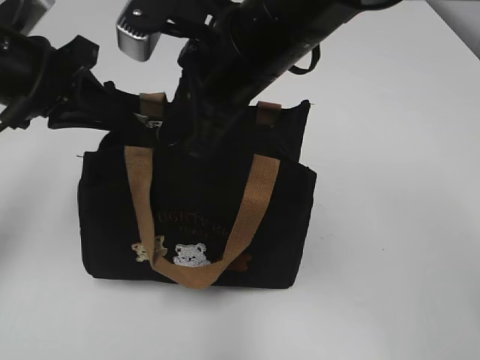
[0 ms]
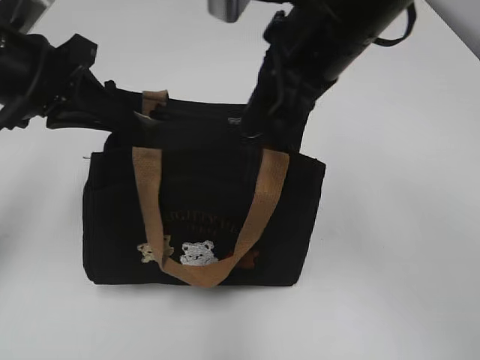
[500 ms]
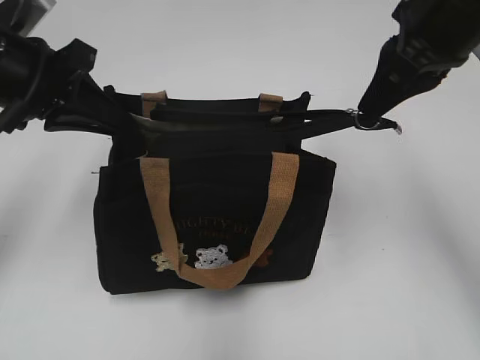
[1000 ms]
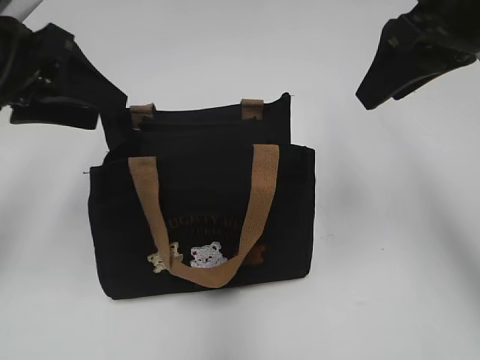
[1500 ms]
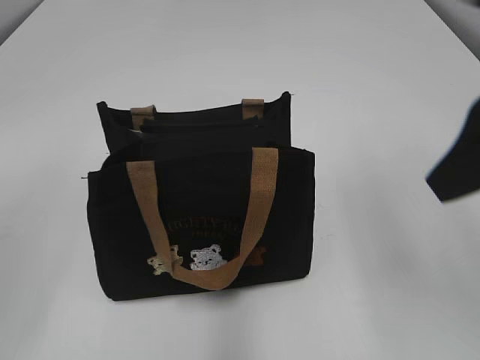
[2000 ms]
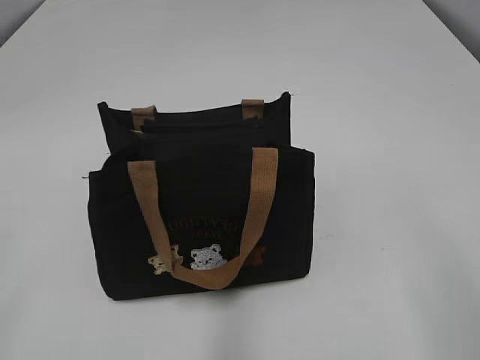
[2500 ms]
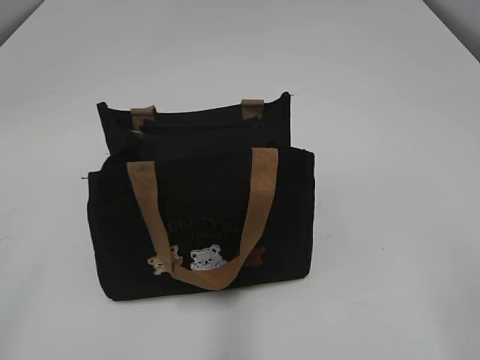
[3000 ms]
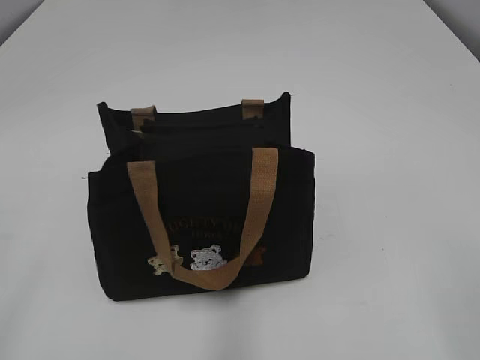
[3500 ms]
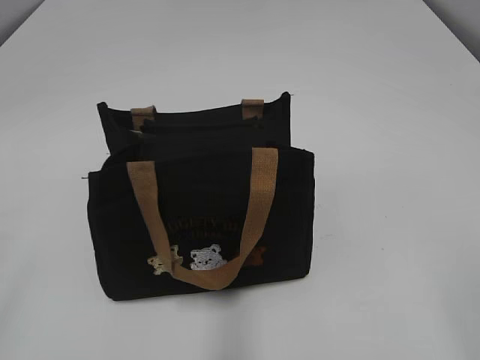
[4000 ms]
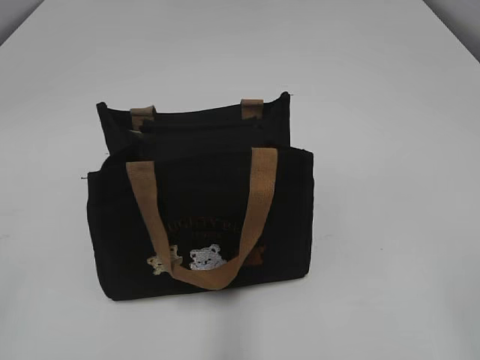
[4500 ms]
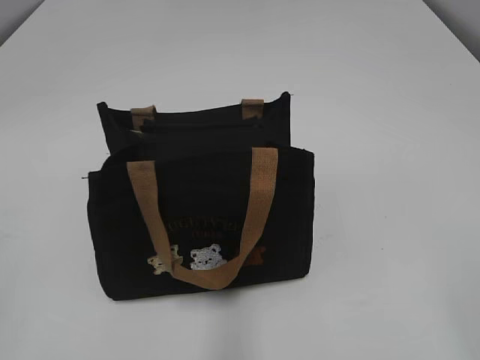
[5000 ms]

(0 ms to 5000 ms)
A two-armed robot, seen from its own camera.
0 ms - 2500 ms: The right gripper moves backward and to the right, approximately 35 cm, and opens its fingers; the left gripper is displaced backward by about 30 cm, and opens up.
